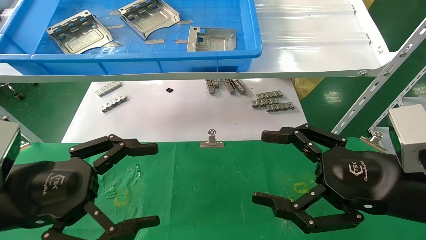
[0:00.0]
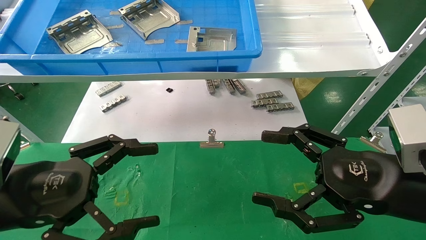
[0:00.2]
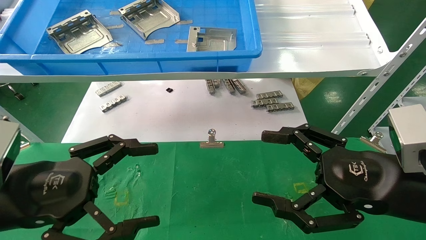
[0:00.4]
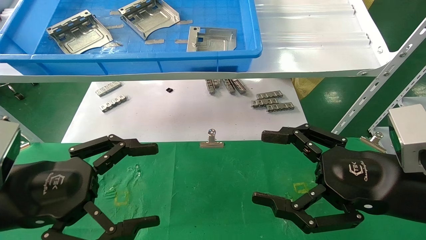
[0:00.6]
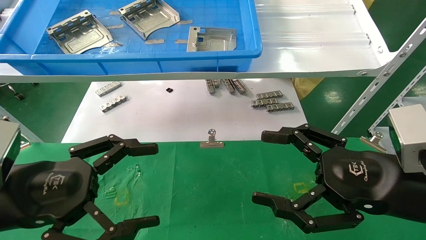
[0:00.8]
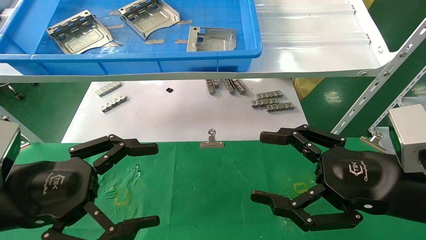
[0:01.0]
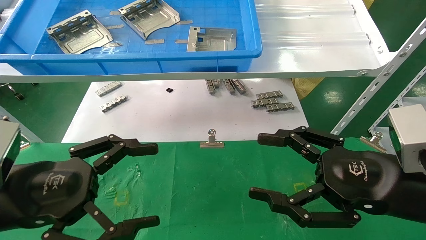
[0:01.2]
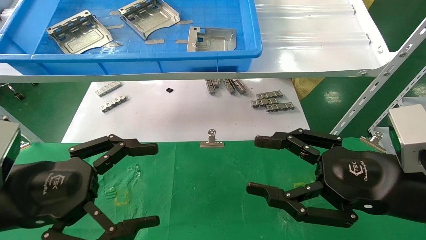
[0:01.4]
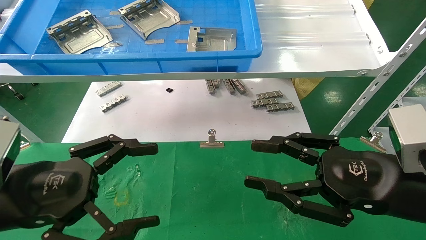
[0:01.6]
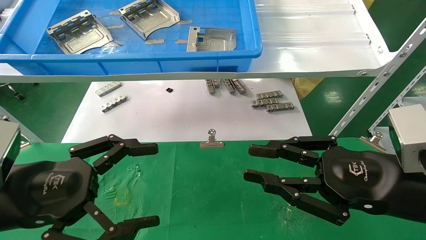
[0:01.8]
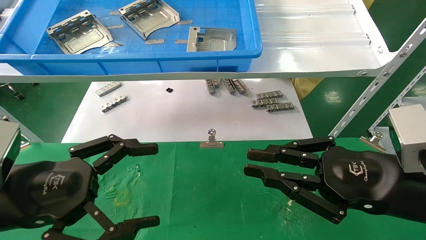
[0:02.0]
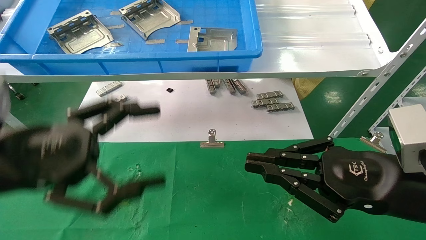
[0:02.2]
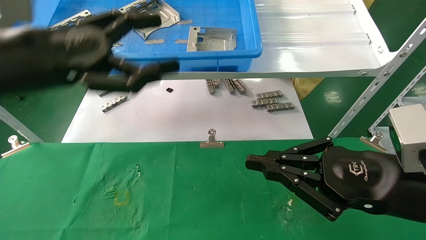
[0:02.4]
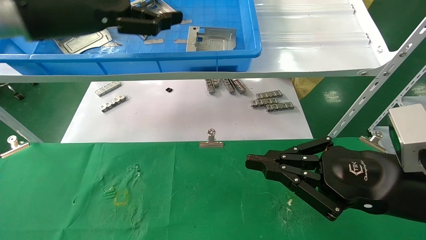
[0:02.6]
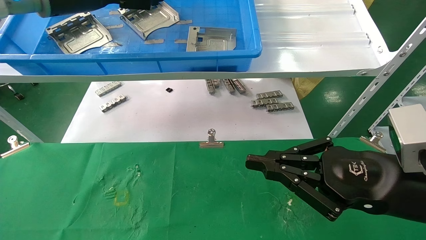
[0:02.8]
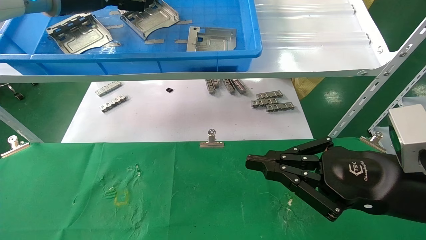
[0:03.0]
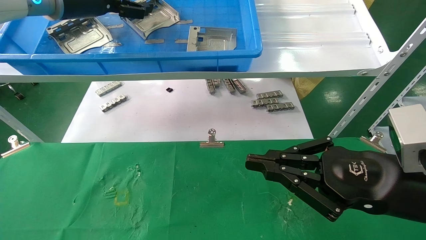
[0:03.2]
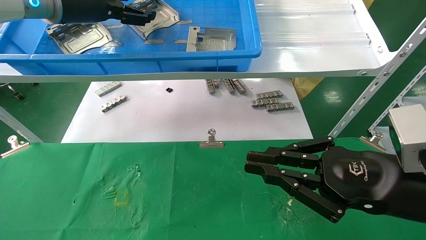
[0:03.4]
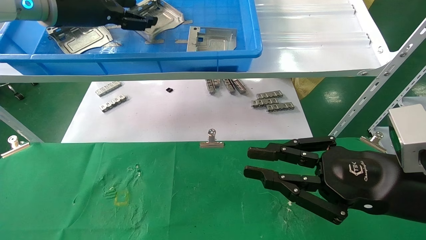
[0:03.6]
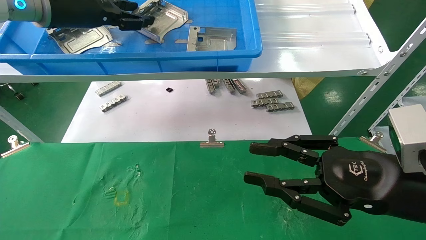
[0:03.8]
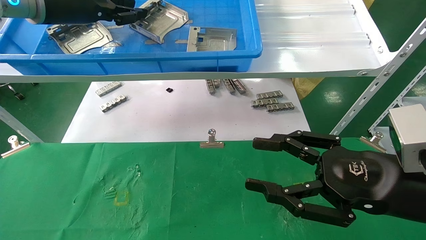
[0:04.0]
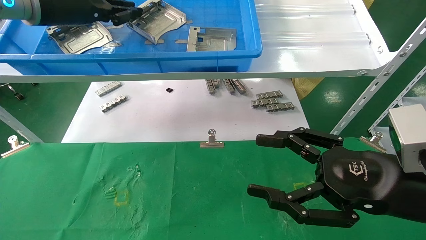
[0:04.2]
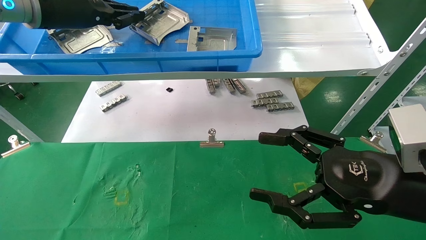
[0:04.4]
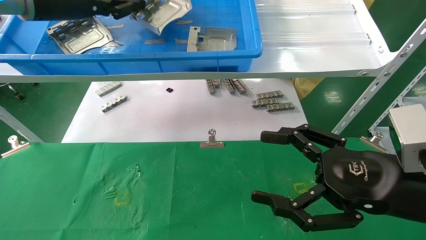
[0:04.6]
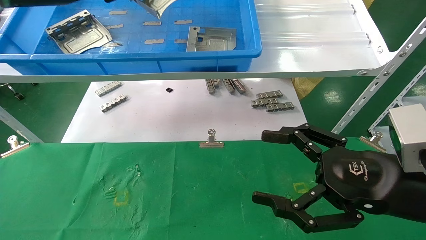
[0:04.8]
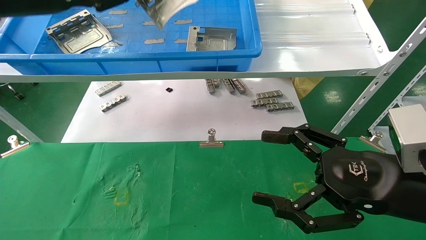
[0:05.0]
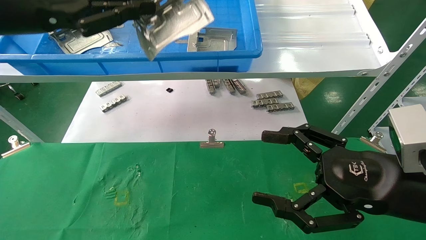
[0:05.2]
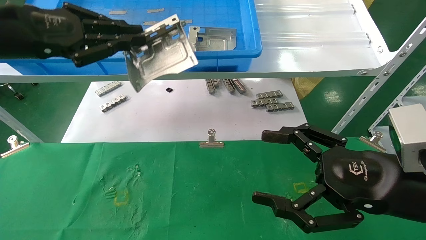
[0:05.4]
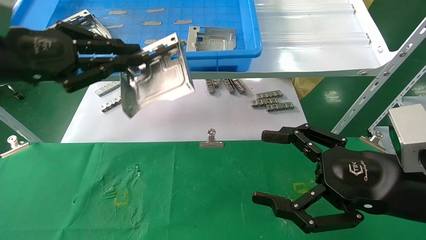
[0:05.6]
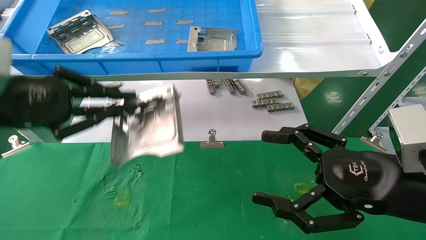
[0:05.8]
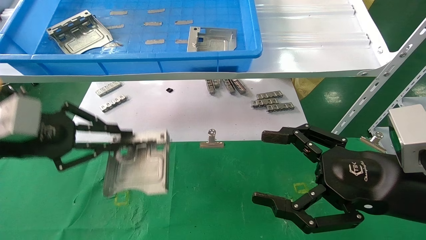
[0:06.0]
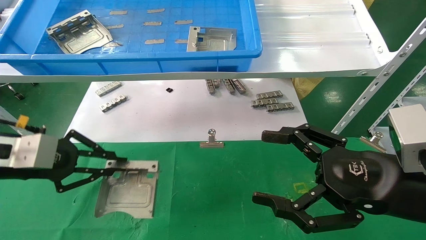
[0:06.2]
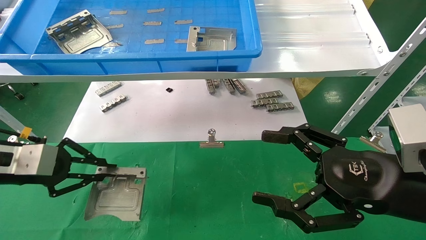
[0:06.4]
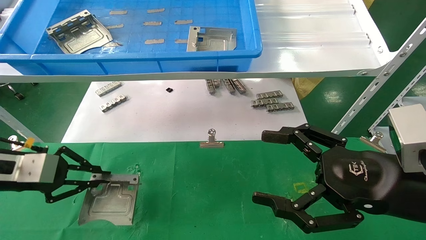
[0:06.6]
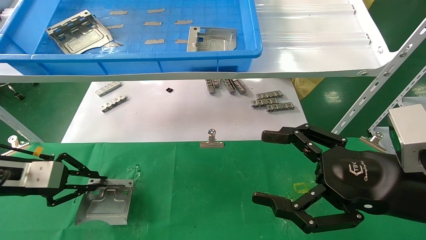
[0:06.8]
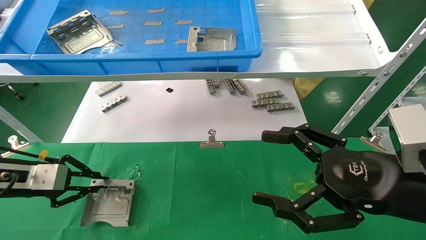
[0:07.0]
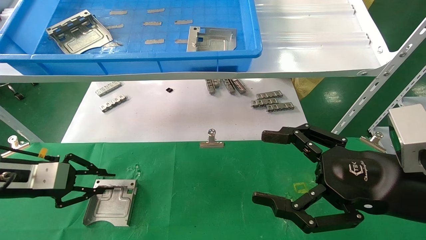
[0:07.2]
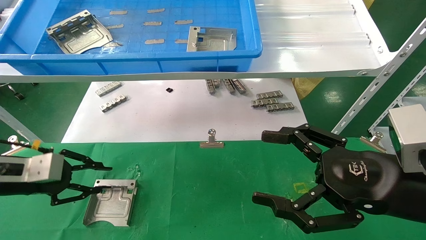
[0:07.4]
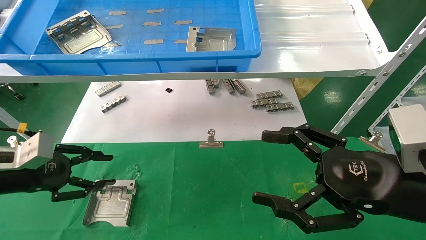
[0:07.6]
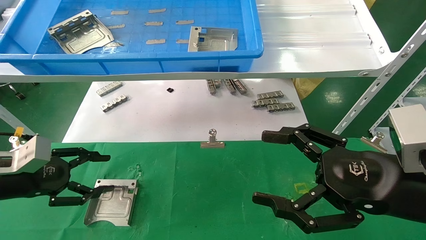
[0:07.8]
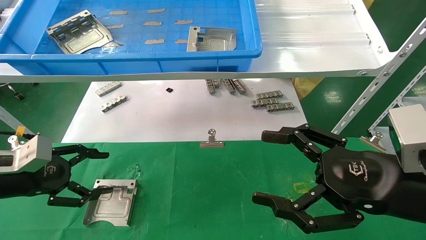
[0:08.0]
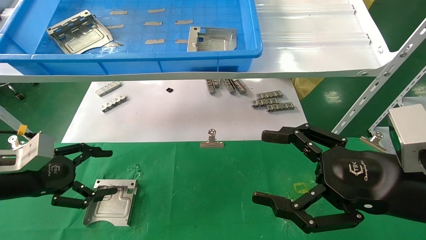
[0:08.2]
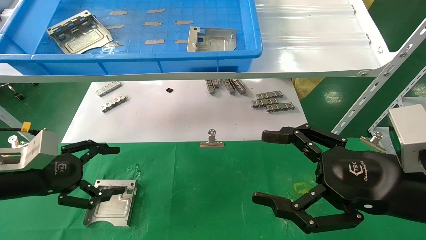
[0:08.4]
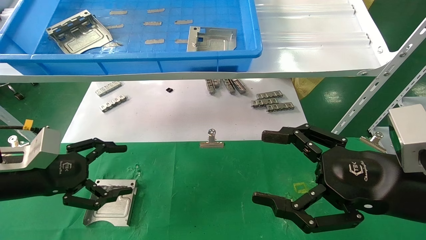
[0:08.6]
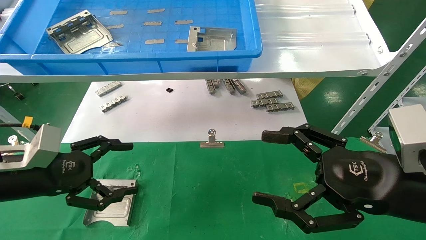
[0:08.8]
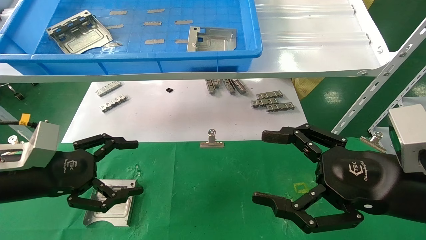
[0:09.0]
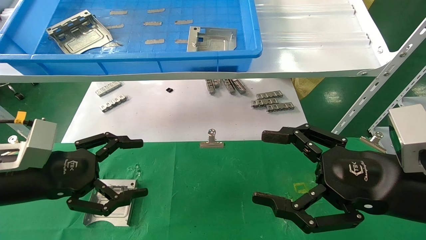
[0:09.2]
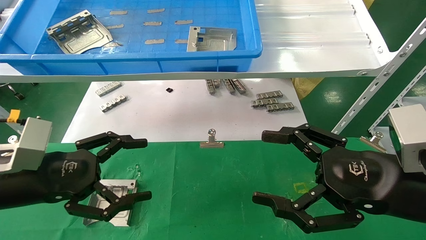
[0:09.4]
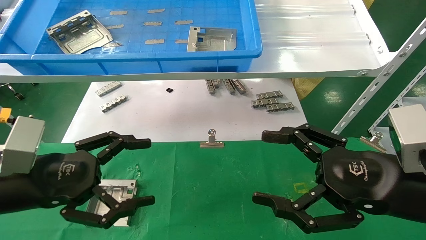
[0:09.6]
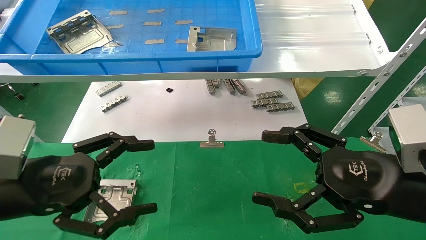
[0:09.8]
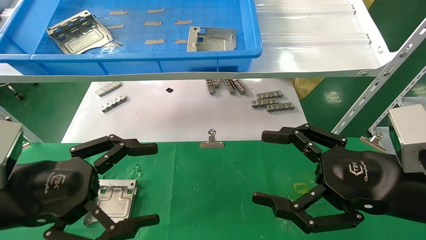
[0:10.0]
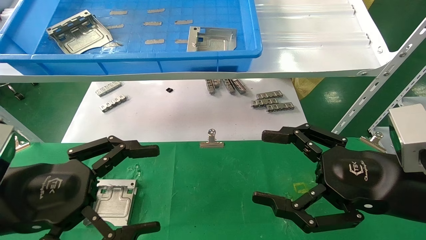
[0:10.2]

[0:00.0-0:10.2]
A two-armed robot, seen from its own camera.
Task of the whole recording: use the mechanical arm to pick up the parts and place them on the table.
Step, 0:02.2 to 0:04.4: Pick up the hard drive bracket from the feeding area.
Step, 0:04.6 to 0:07.2: Place the hard drive bracket into the box.
0:00.0 to 0:01.4: Both grippers stay put.
0:01.4 to 0:03.0: The right gripper closes. The left gripper heads upward and forward, covering some 35 cm.
0:03.0 to 0:04.4: The left gripper closes up, while the right gripper opens.
0:04.4 to 0:05.8: The left gripper travels downward, backward and to the left by roughly 20 cm.
0:05.8 to 0:07.2: The left gripper heads downward and to the left, covering some 15 cm.
0:07.2 to 0:08.8: The left gripper shifts roughly 5 cm to the right, and opens its fingers.
0:08.8 to 0:10.2: The left gripper travels backward and to the right by some 10 cm.

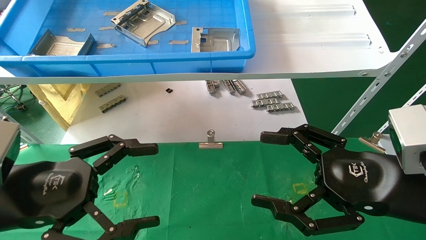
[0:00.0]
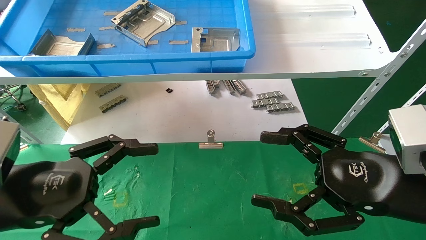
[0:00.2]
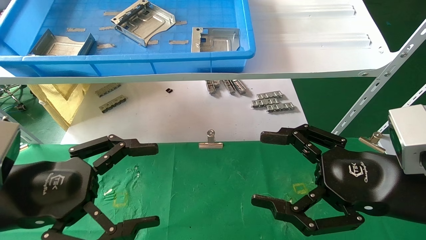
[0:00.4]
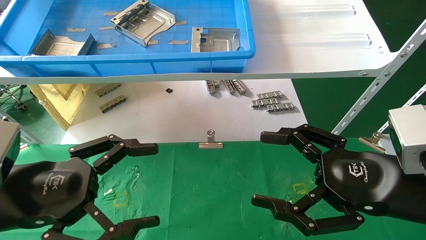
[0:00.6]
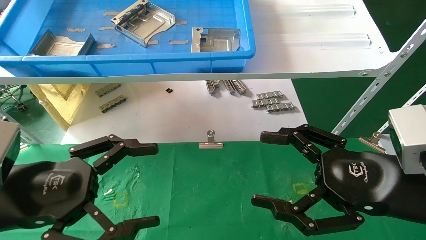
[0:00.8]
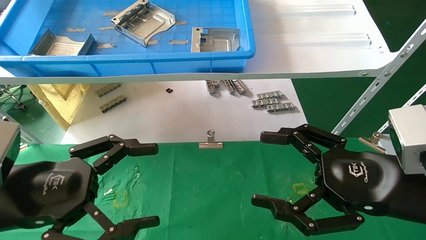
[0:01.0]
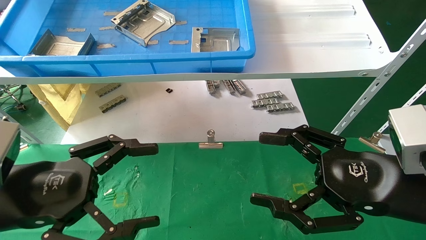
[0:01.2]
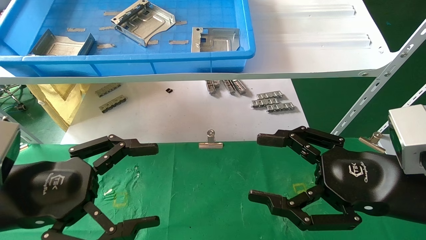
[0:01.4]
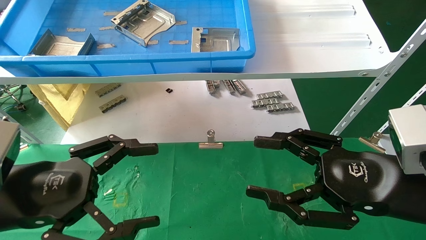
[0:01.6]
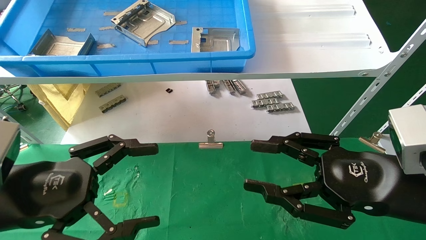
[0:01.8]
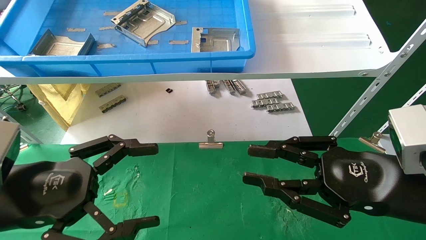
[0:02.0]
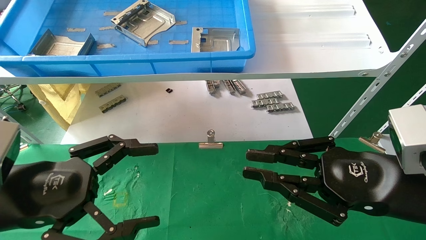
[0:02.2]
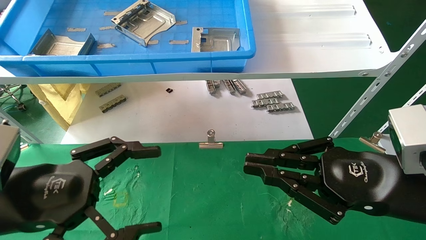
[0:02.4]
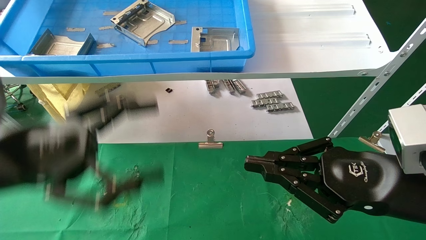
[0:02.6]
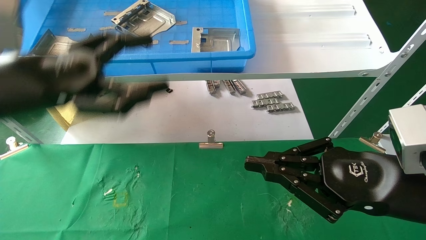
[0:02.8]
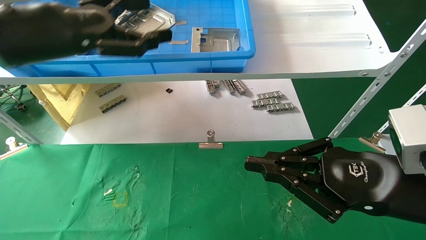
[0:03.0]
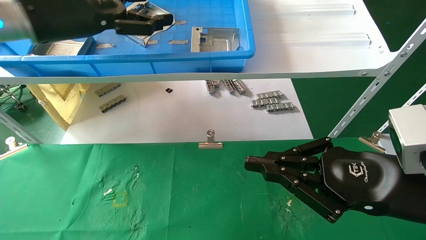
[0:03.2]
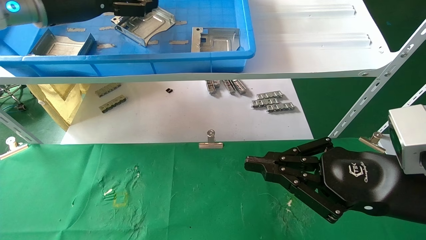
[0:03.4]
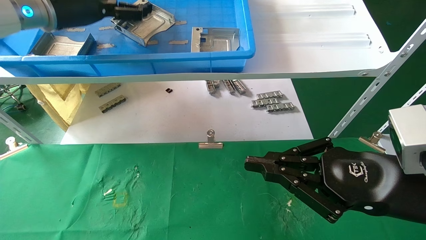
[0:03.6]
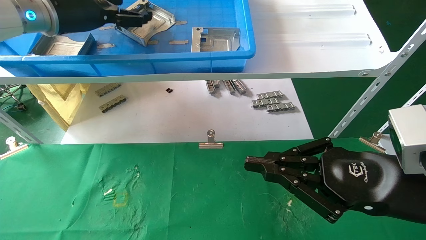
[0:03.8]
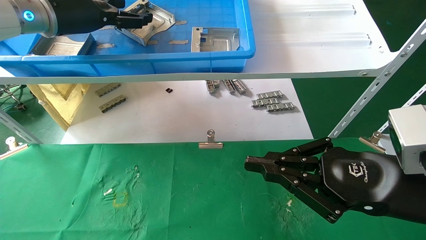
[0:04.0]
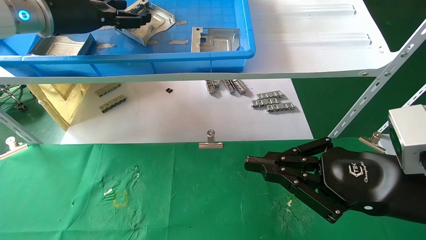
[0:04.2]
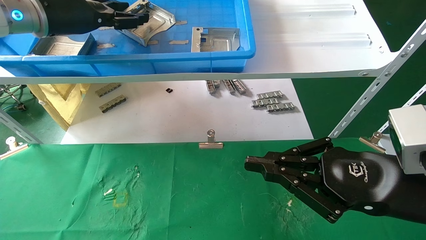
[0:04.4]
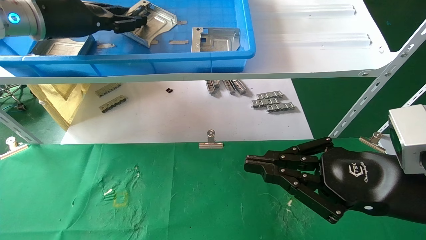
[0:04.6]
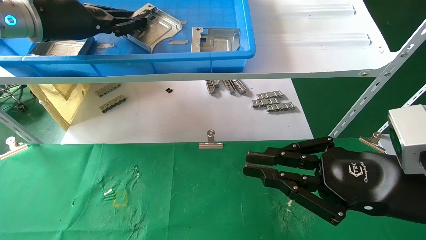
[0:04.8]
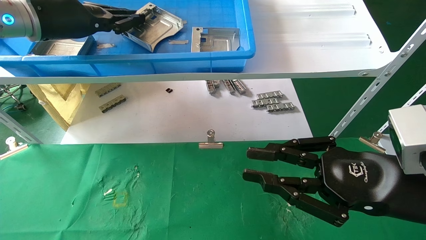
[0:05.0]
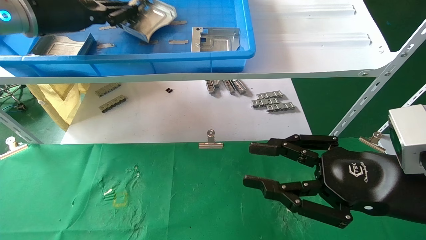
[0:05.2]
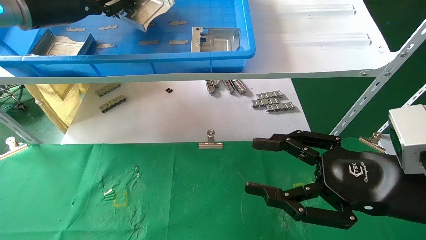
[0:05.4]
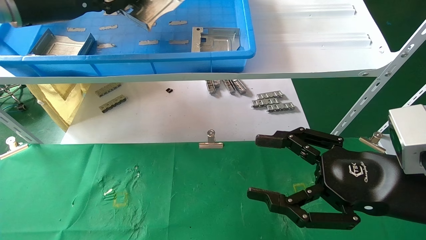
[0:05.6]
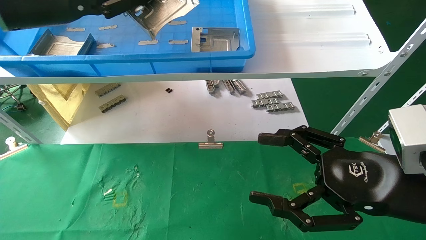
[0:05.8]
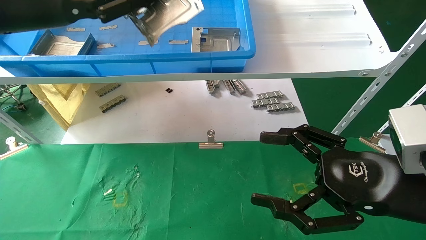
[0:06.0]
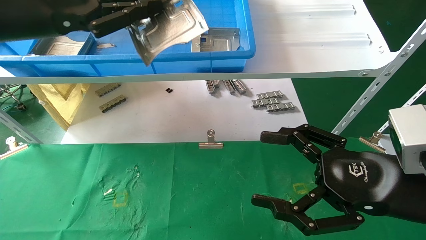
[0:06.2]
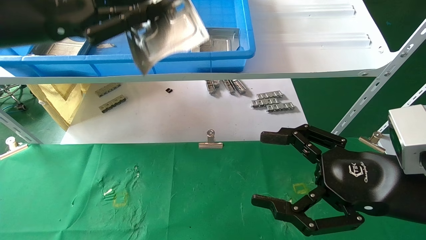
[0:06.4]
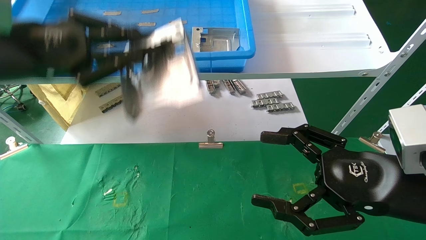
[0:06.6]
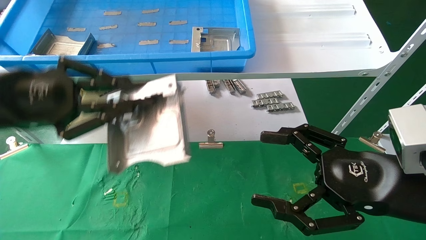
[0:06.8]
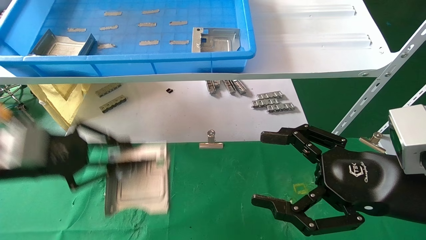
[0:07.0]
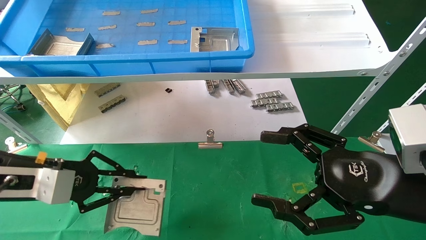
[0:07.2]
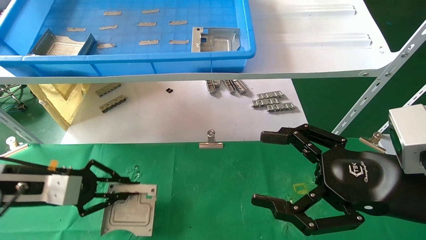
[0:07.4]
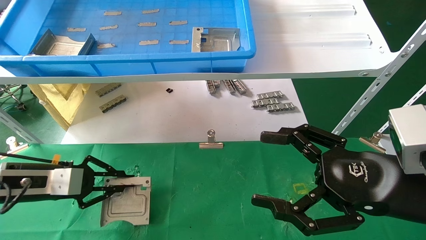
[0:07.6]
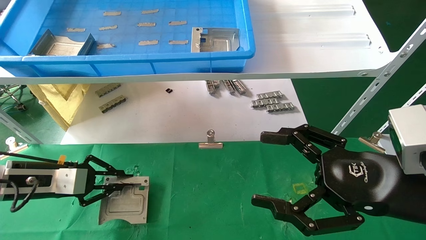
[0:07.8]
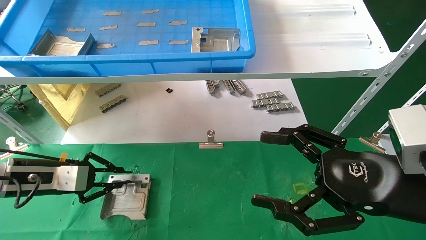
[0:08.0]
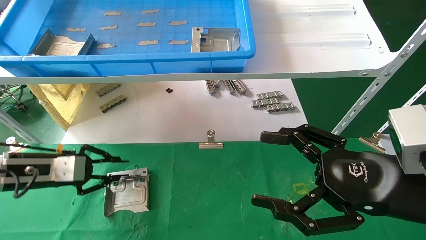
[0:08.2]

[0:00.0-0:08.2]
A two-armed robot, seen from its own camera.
Task of the whole recording: use the mechanical arm to pick up the parts and place them on the table.
Step, 0:02.6 to 0:04.8: Pick up the hard drive bracket from the feeding area.
0:00.0 to 0:01.6: The two grippers keep their place.
0:01.6 to 0:03.2: The left gripper is displaced upward and forward by approximately 25 cm, while the right gripper closes up.
0:03.2 to 0:05.0: The left gripper closes up.
0:05.0 to 0:06.6: The left gripper shifts roughly 15 cm backward and downward; the right gripper opens up.
0:06.6 to 0:08.2: The left gripper moves downward, some 20 cm.
